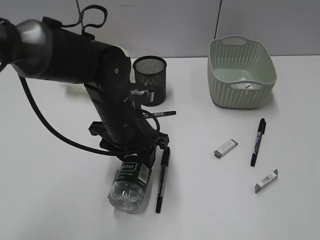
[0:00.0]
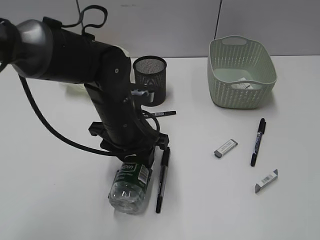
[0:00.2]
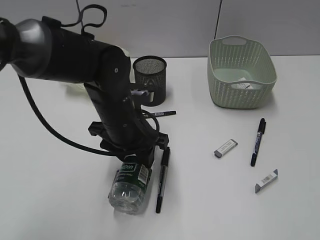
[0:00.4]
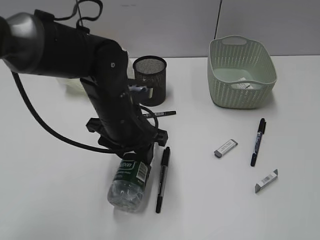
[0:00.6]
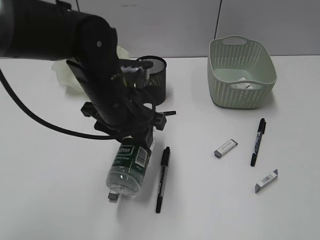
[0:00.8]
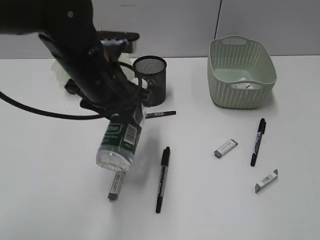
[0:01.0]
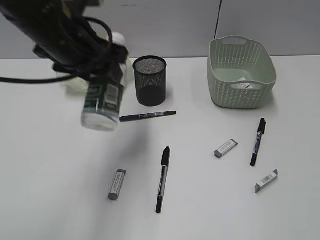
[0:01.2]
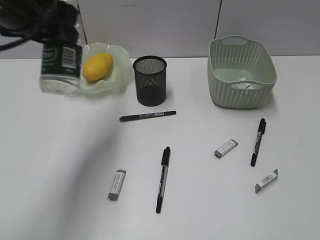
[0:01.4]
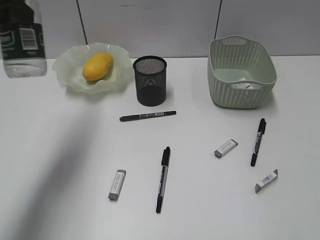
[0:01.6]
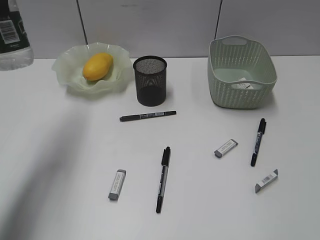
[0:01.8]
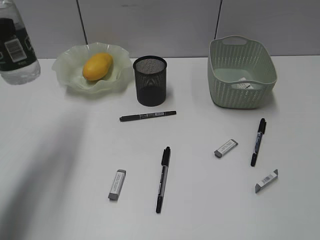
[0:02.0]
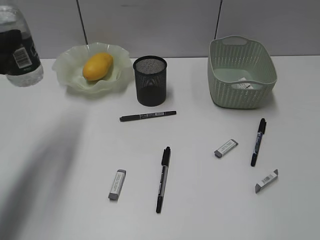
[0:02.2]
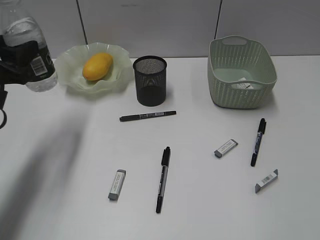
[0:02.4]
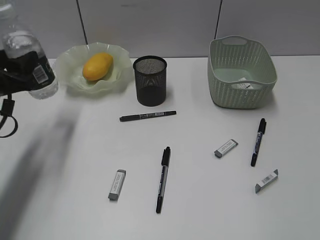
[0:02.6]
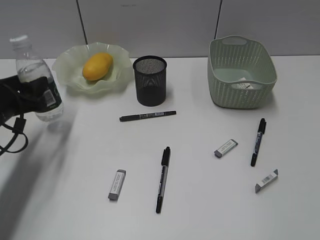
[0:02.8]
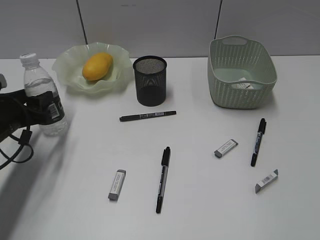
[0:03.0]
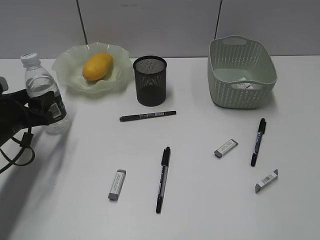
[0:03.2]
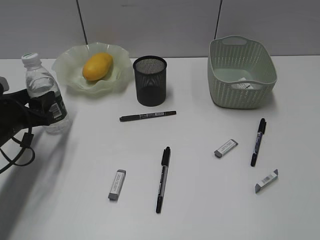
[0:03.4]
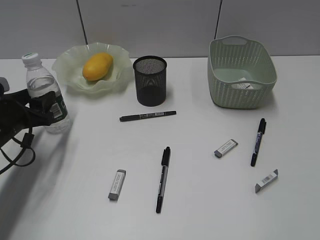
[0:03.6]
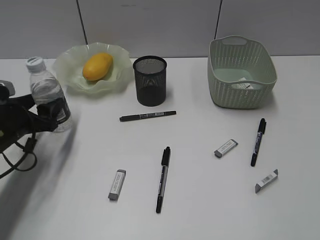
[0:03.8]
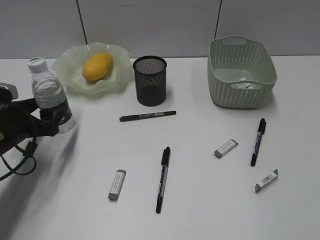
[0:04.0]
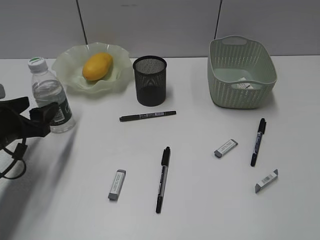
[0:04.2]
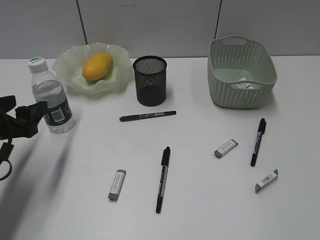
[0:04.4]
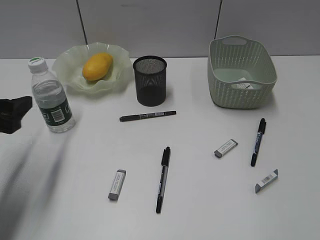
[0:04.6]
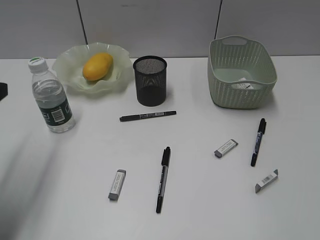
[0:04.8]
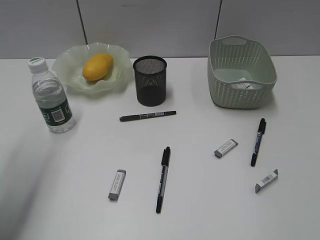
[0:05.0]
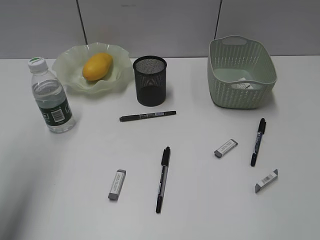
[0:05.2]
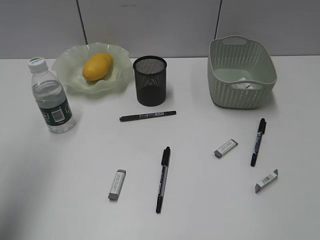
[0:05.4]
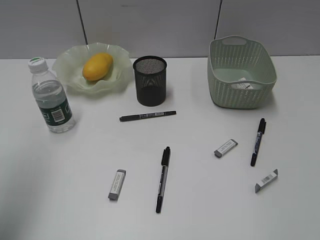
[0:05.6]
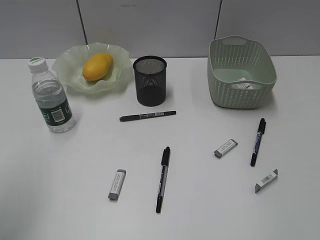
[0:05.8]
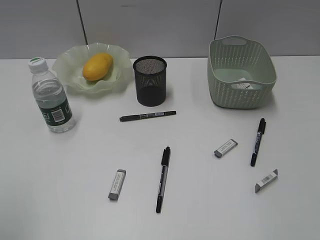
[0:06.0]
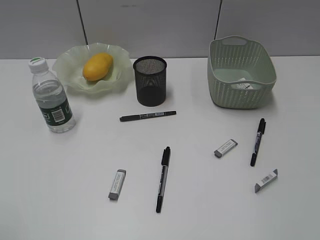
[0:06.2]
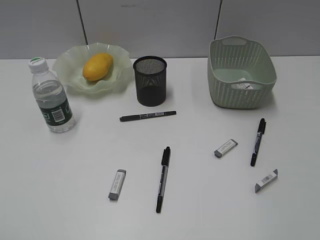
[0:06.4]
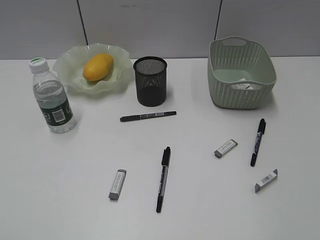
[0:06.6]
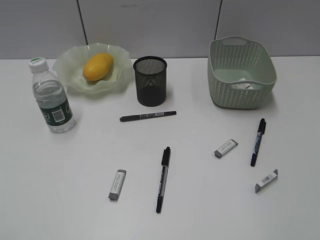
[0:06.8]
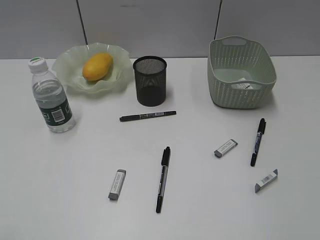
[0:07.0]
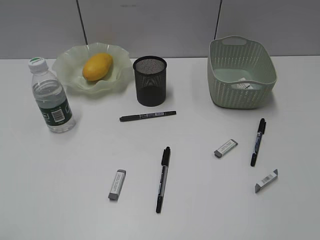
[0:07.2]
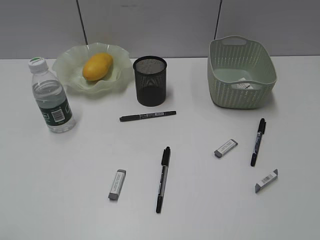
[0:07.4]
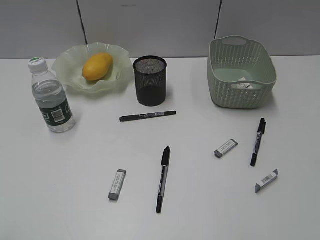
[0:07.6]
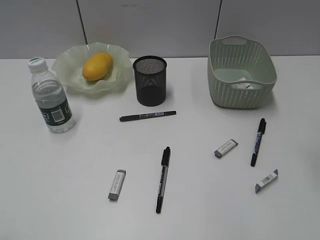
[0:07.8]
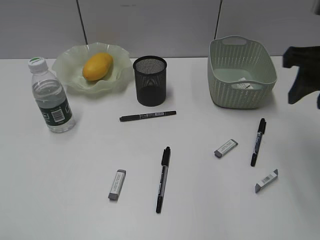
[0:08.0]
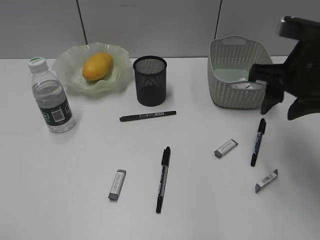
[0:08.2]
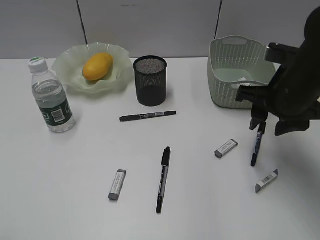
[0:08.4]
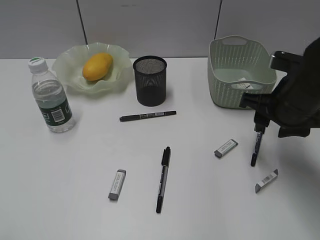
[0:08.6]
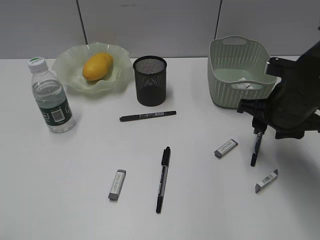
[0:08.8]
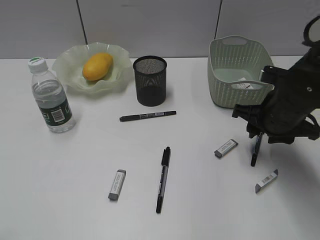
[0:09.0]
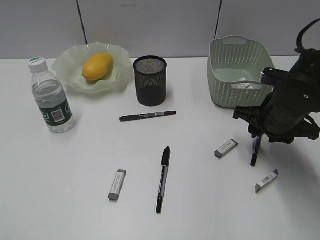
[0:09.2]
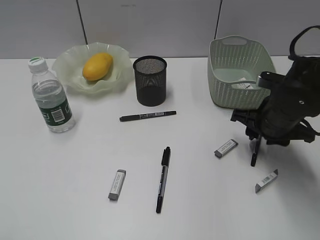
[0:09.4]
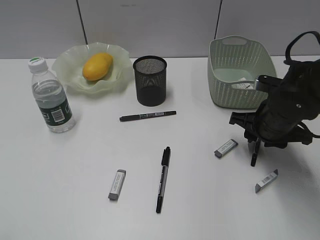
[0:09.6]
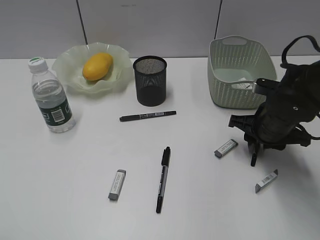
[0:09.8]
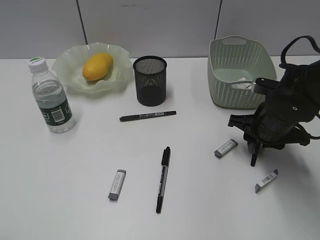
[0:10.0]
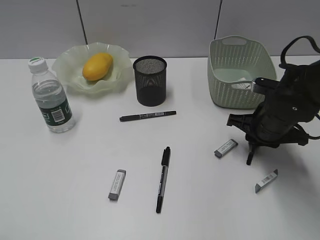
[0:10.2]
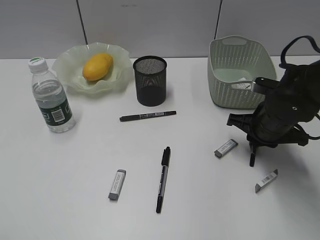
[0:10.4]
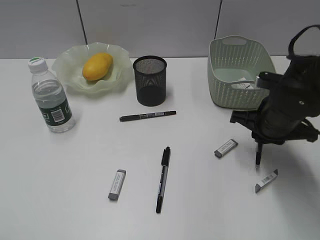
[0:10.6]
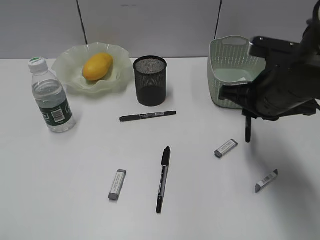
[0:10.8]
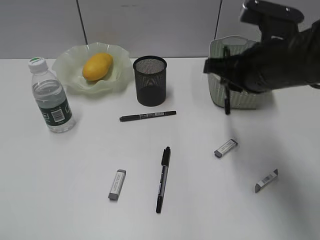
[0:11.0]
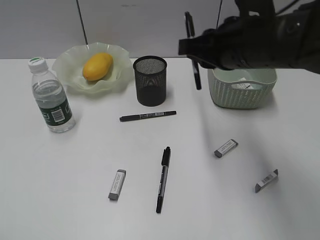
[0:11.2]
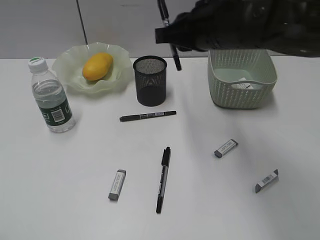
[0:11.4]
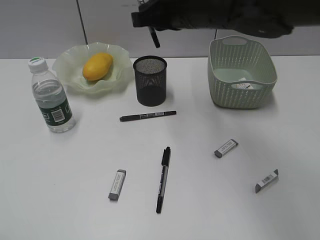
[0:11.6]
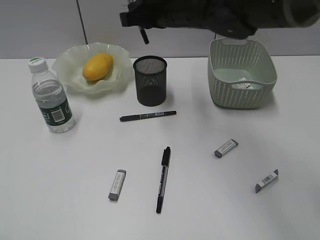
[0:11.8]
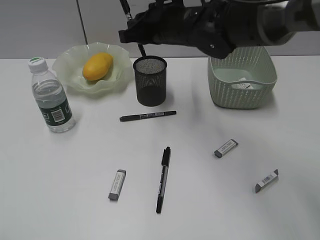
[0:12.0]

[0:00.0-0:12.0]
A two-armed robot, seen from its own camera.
Step, 0.6 to 4.2 s: Stand the bottle with left gripper.
Step, 4.4 to 10.4 s: Grasp the black pen with right gripper.
0.0 to 1.6 s: The left gripper is displaced upward and to the left by about 25 cm.
1.6 to 3.0 s: The left gripper heads downward, covering approximately 25 cm.
3.0 to 4.4 s: The left gripper changes place by approximately 5 cm.
4.4 to 6.0 s: The left gripper heads upward and backward, covering about 30 cm.
7.6 to 9.0 s: The right gripper is displaced downward, forward and to the left by some 25 cm.
9.0 to 10.4 s: The right gripper closes its fingers.
10.4 to 12.0 s: The right gripper is displaced to the left, upward and forward by approximately 25 cm.

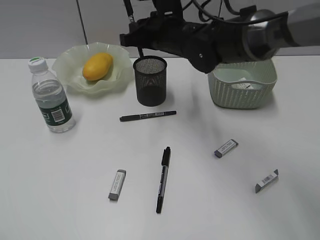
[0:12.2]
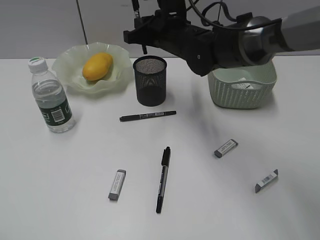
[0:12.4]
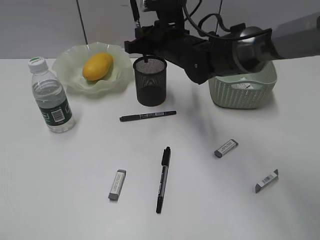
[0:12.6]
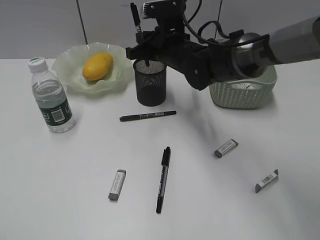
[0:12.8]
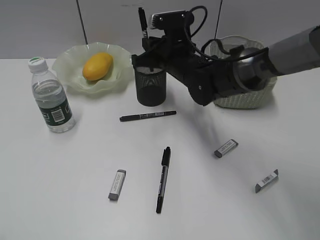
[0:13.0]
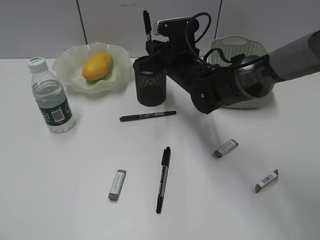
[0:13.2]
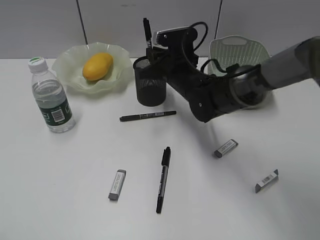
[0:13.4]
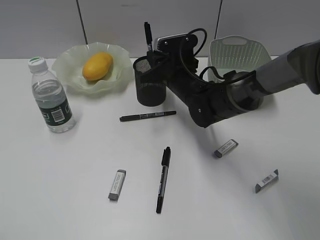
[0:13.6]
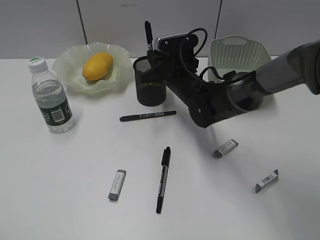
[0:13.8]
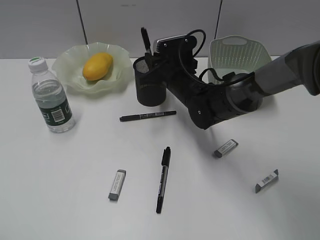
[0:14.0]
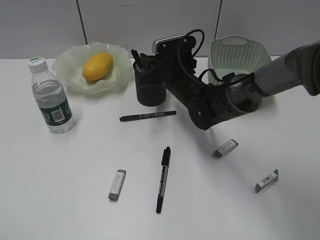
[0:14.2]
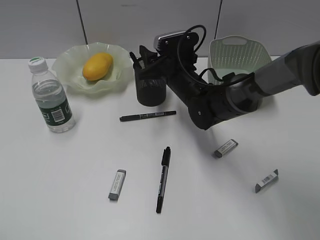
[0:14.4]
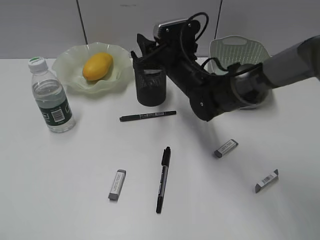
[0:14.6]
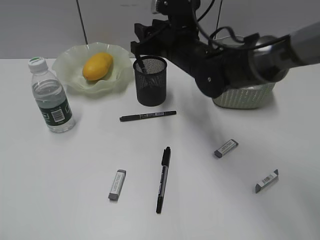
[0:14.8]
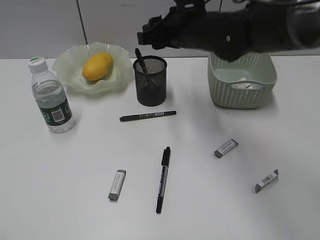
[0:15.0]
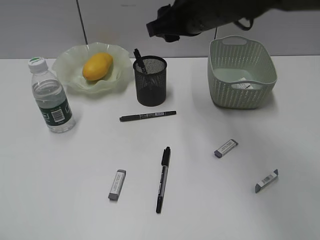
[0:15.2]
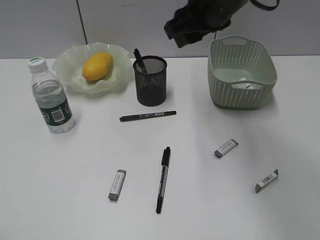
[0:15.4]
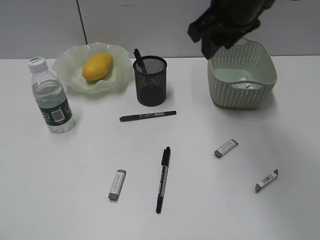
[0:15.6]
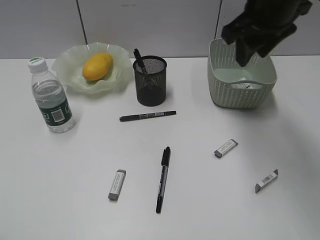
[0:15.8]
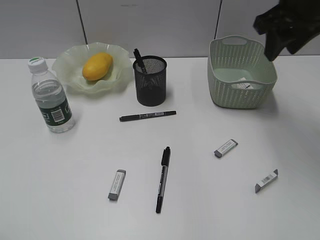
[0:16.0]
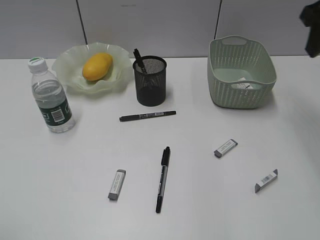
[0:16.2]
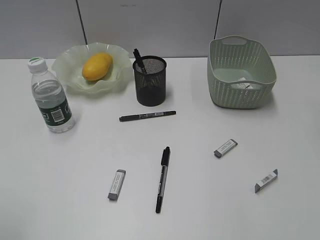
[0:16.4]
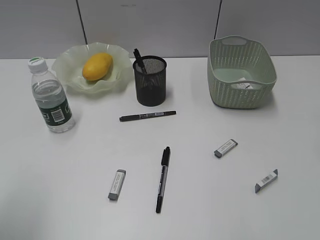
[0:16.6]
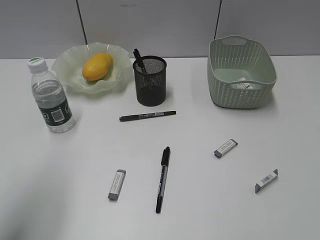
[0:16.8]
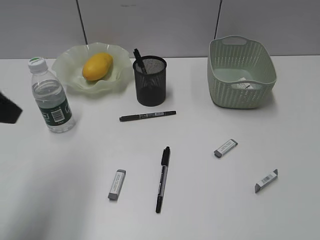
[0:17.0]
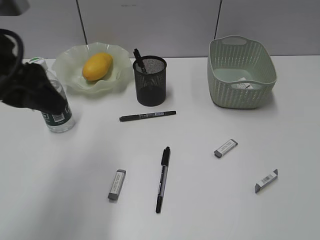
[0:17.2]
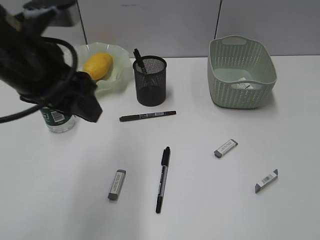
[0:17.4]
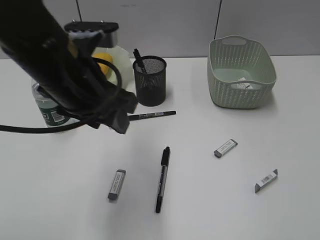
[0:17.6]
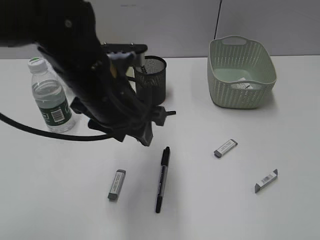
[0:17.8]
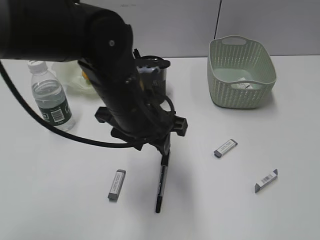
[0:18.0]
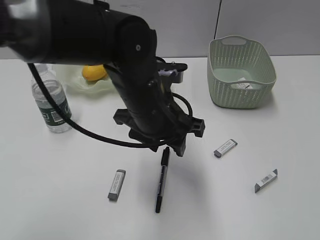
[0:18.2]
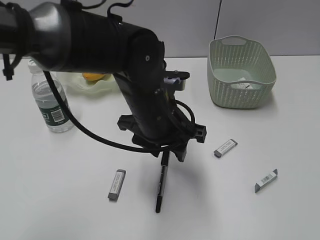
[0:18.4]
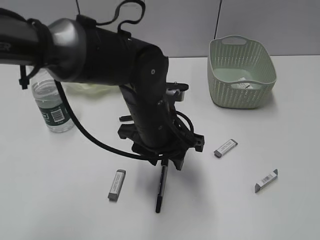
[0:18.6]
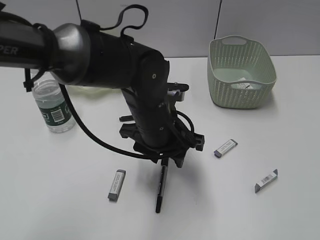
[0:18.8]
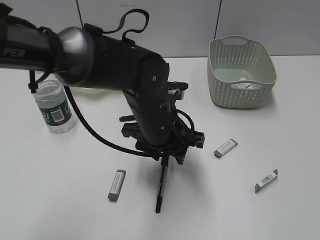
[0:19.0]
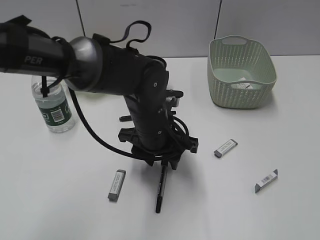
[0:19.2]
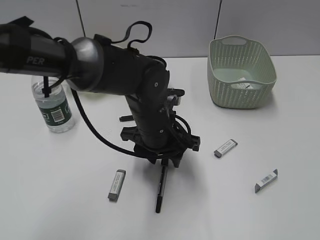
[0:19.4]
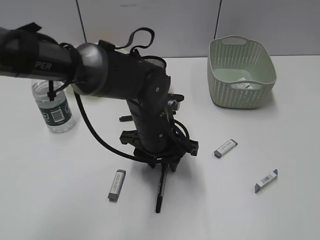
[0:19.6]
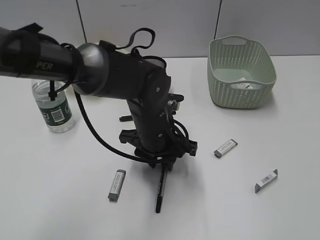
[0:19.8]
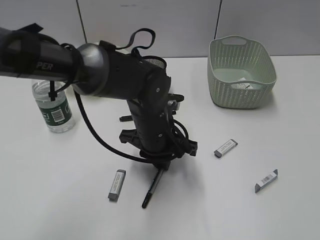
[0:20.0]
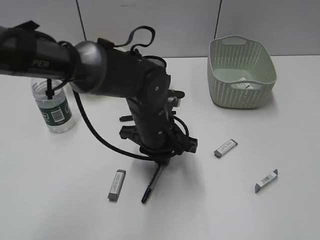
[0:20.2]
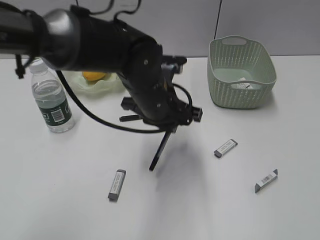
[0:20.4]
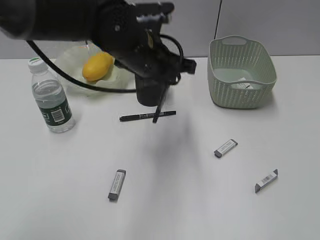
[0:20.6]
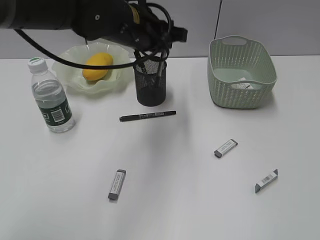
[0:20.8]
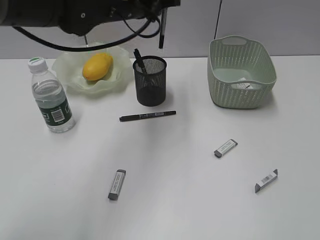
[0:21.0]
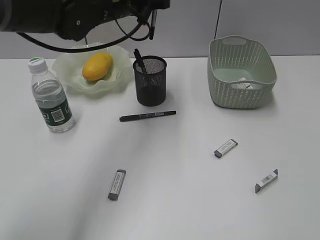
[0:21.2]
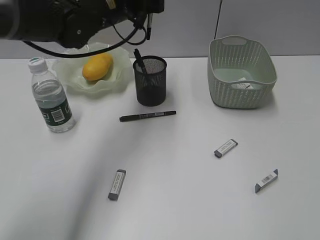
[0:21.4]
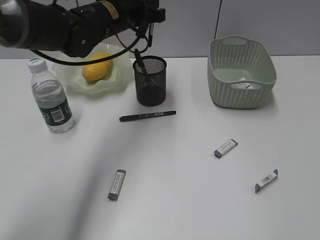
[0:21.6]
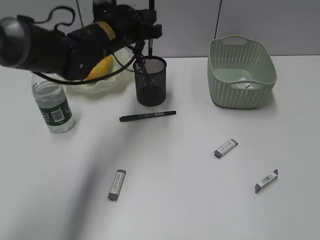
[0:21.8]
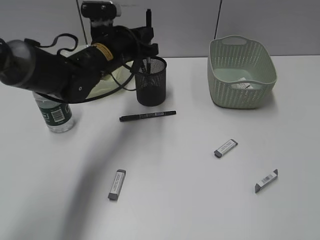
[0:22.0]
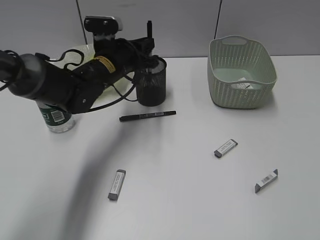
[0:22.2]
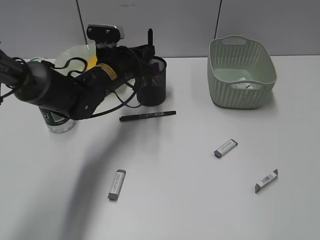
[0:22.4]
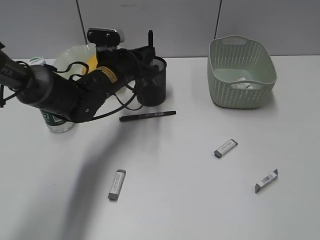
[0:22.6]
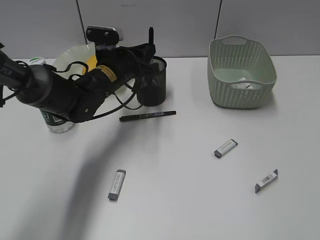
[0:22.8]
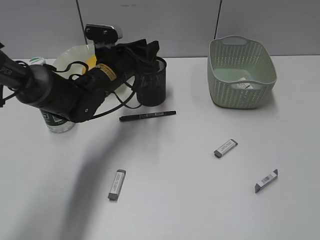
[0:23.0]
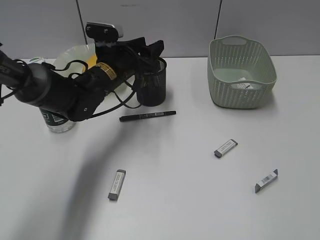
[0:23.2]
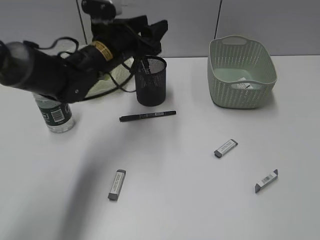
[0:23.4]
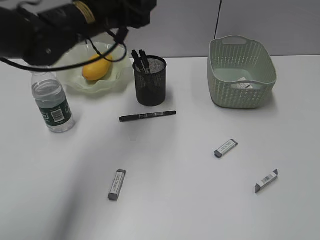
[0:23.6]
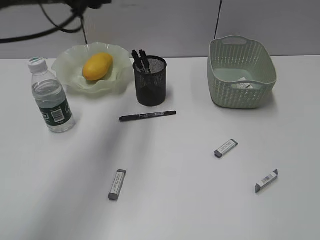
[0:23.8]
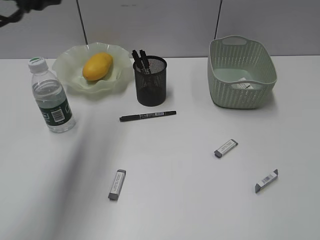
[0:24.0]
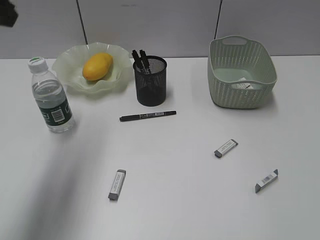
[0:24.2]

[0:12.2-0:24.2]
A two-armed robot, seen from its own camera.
Step, 12.2 to 14.4 s: Place the black pen in pen holder with right gripper.
Step, 14.6 to 20.0 s: Grasp the black pen with left gripper.
Step, 20.2 to 23.2 s: Place the black pen in pen holder with left gripper.
12.2 to 13.8 s: The right gripper moves downward, approximately 10 cm.
13.8 to 15.2 s: The right gripper heads upward, covering roughly 15 cm, and opens up.
15.2 to 16.6 s: The left gripper shifts about 10 cm forward. Meanwhile the right gripper goes approximately 25 cm to the right and backward.
16.6 to 18.2 s: The right gripper is displaced backward by about 25 cm. The left gripper travels to the right and forward by some 35 cm.
18.2 to 19.8 s: The left gripper heads downward, covering some 10 cm.
19.8 to 21.2 s: The left gripper heads upward and forward, covering about 20 cm, and closes its fingers.
21.2 to 22.6 s: The left gripper shifts some 15 cm downward.
22.6 to 24.2 s: The right gripper moves forward, approximately 5 cm. The left gripper goes some 30 cm upward, to the left and backward, and opens.
